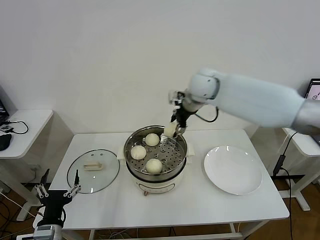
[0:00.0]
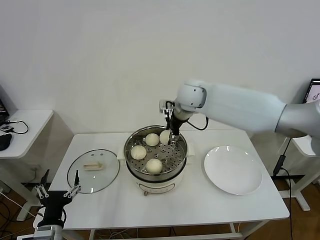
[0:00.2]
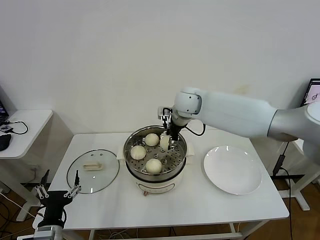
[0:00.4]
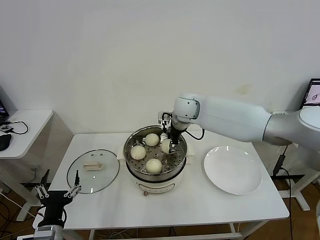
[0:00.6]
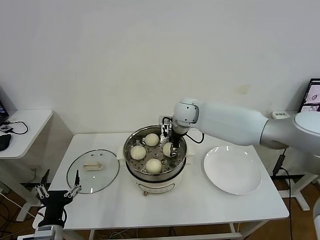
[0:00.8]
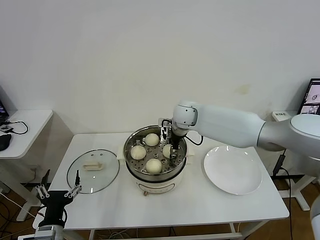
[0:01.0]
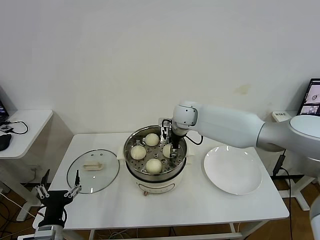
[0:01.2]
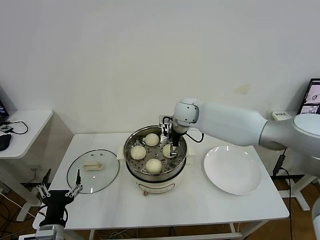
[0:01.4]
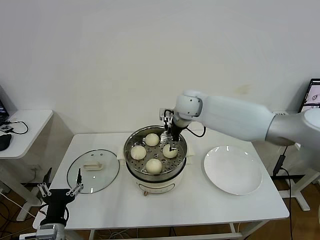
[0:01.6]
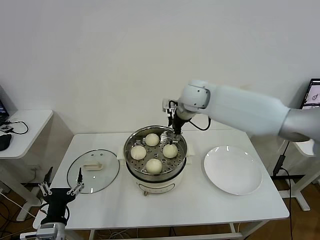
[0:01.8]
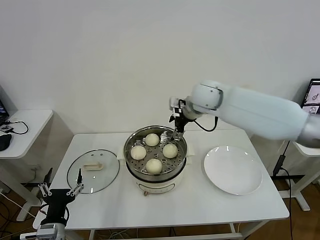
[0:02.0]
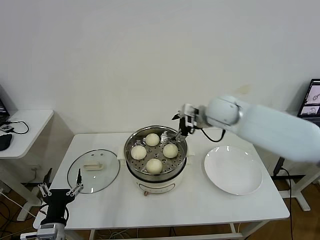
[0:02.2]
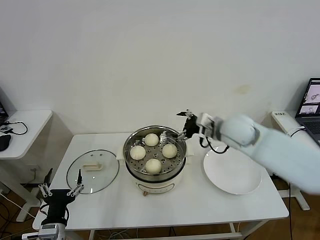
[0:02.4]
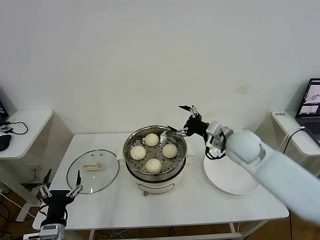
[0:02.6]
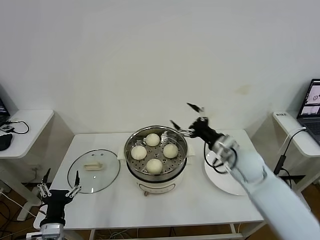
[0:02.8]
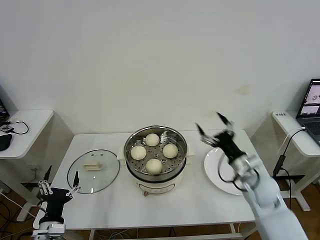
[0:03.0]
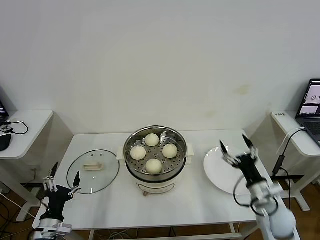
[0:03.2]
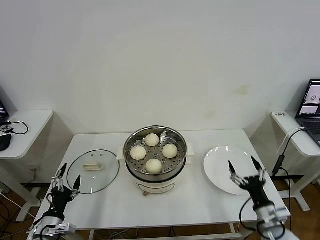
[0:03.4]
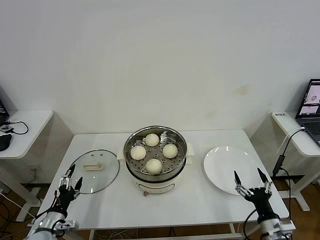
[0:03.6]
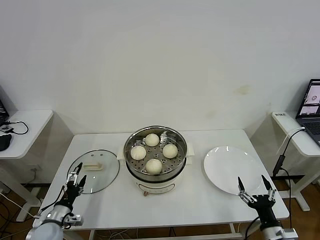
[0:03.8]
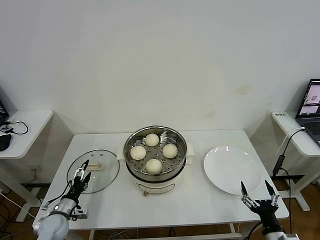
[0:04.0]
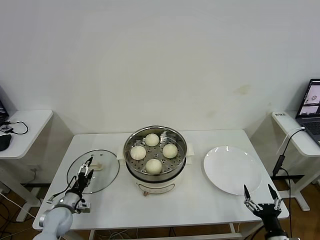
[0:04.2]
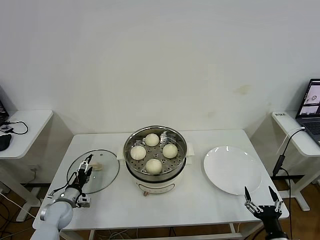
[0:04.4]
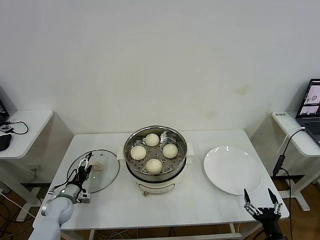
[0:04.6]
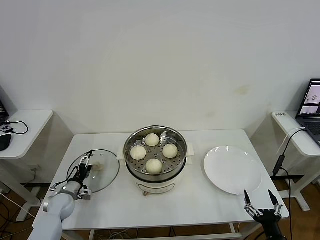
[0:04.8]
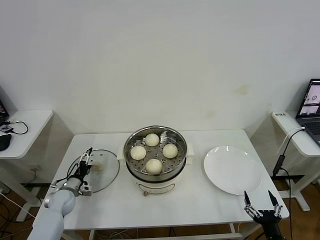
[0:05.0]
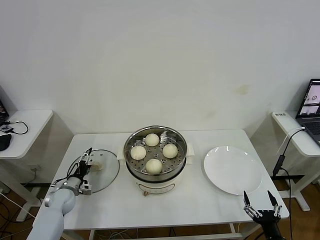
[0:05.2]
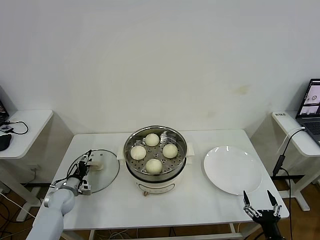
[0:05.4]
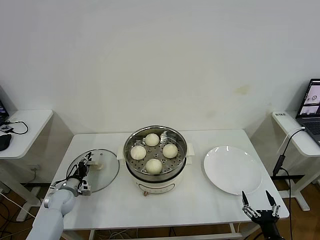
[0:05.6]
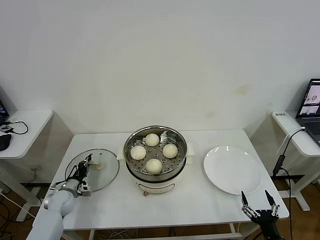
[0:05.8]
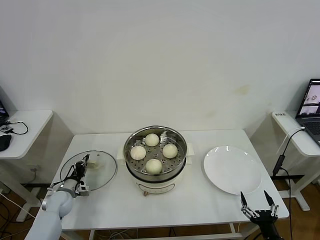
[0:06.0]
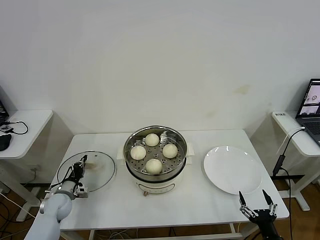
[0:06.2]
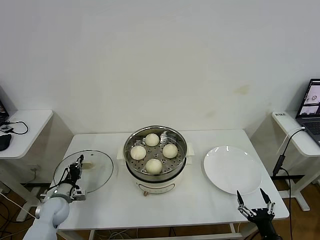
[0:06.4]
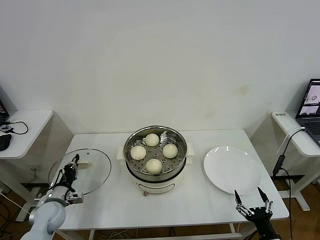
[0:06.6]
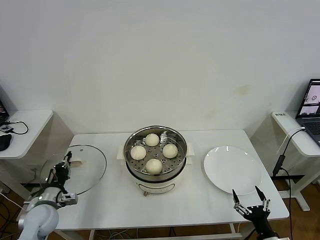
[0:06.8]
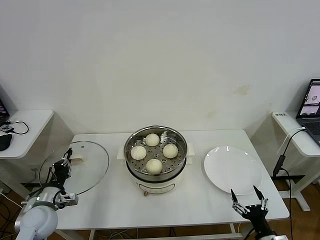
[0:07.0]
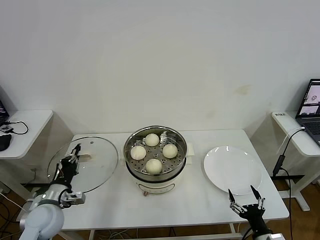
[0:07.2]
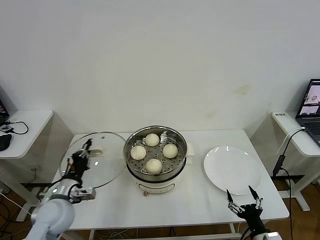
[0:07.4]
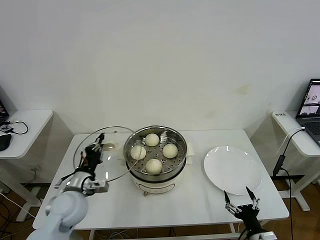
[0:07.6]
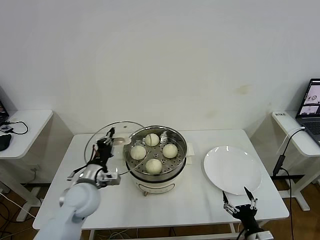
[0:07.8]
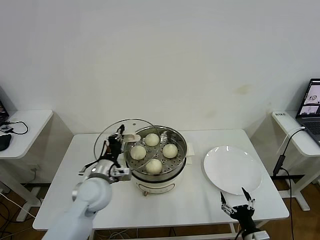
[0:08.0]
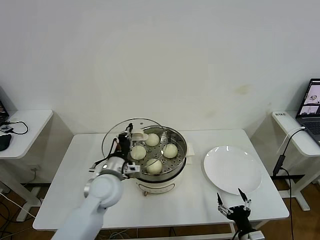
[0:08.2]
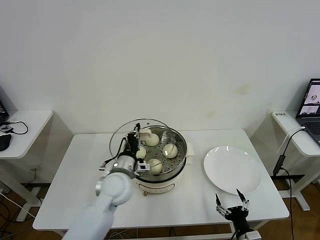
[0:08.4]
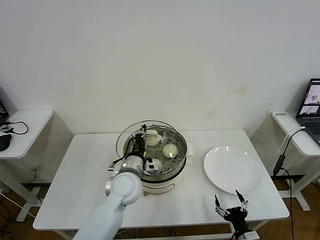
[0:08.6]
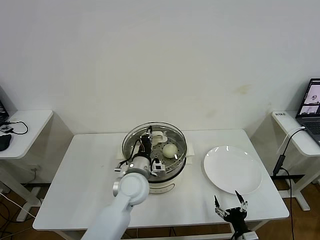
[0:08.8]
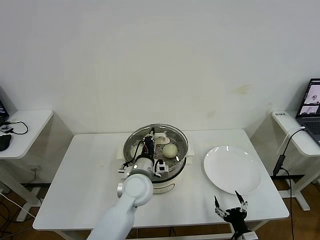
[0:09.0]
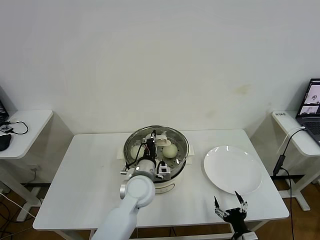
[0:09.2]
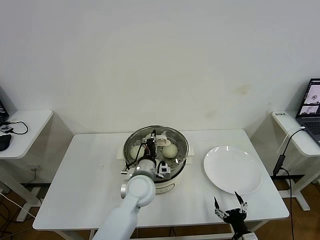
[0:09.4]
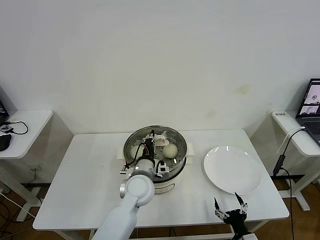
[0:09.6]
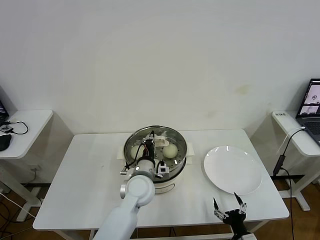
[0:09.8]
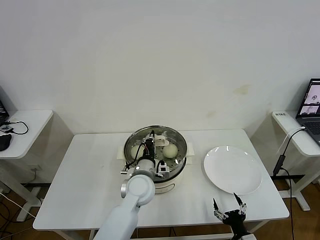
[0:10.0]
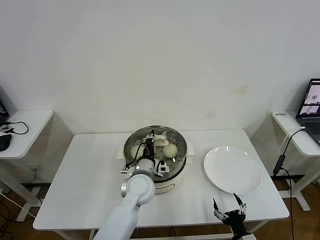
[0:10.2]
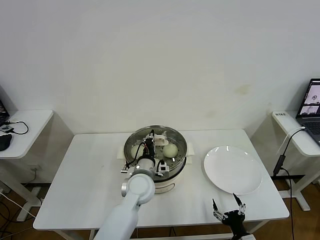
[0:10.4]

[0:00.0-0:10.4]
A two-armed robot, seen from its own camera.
Task of the whole recording: take steamed baozi put them in steamer then cover it.
Step, 0.0 to 1.4 s: Place the baozi on the steamer with right gripper.
Step, 1.8 to 6.0 s: Grasp the pot lid with left gripper.
0.0 to 1.4 s: The right gripper shifts some 10 cm downward, and opens its fingers.
1.4 to 3.0 s: The right gripper goes about 30 cm backward, to the right and downward.
3.0 to 4.4 s: The left gripper heads forward and downward, covering some 20 cm, while the right gripper travels backward and downward by about 25 cm.
4.4 to 6.0 s: The left gripper travels forward by about 5 cm, and closes.
6.0 to 7.4 s: The left gripper goes some 20 cm upward, backward and to the right.
7.4 to 9.0 s: The right gripper moves about 5 cm. Meanwhile the left gripper travels to the right by about 25 cm.
9.0 to 10.4 s: There are only small adjustments of the grippers.

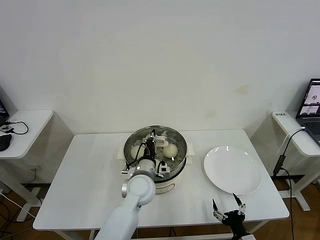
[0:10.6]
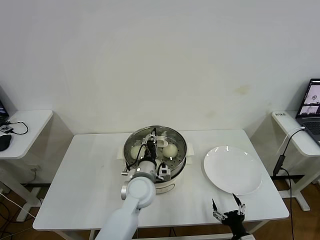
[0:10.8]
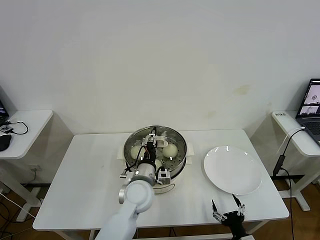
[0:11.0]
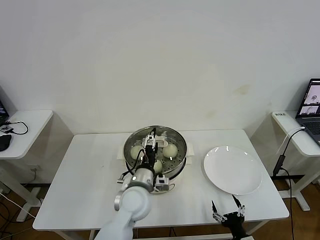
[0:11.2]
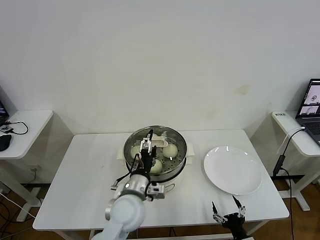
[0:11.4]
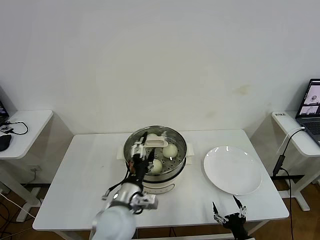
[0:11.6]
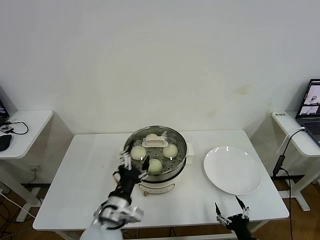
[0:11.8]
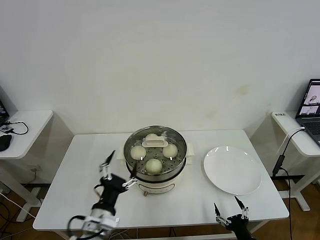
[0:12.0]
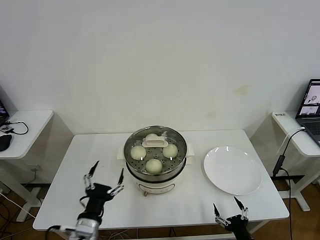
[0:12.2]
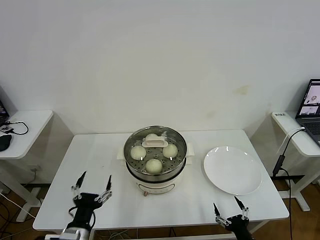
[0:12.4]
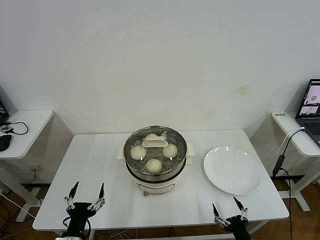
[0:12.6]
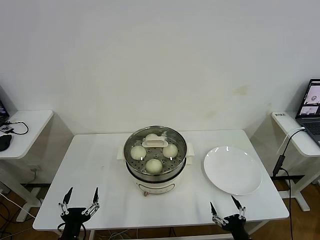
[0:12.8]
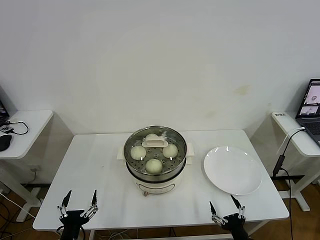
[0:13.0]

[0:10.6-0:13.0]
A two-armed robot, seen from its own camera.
Task of the whole recording: take steamed baozi put them in steamer then cover it.
10.6 to 11.8 s: The left gripper moves backward and to the left, about 15 cm, and opens its fingers.
11.8 to 13.0 s: The left gripper moves to the left, downward and backward, some 20 cm.

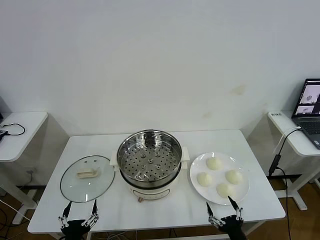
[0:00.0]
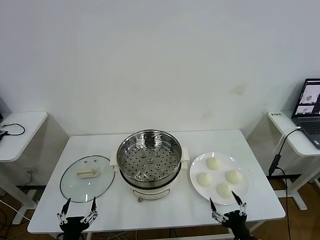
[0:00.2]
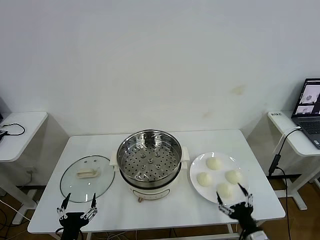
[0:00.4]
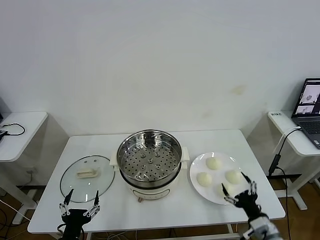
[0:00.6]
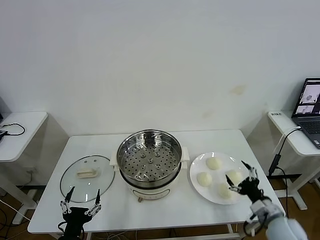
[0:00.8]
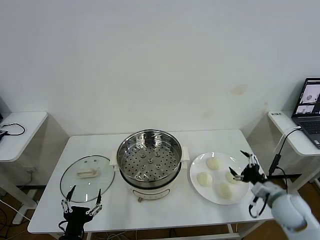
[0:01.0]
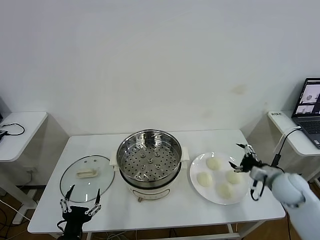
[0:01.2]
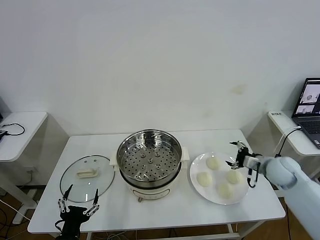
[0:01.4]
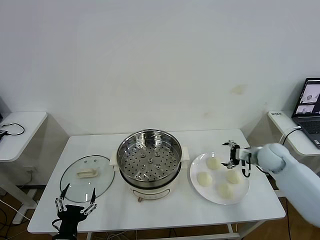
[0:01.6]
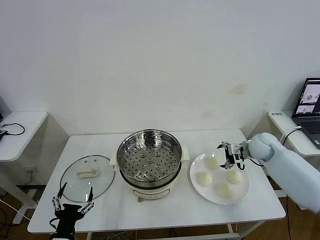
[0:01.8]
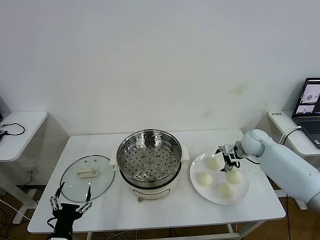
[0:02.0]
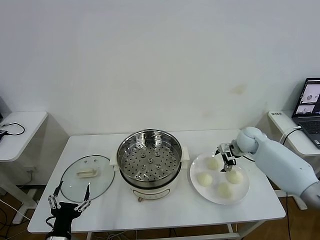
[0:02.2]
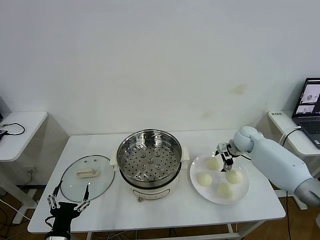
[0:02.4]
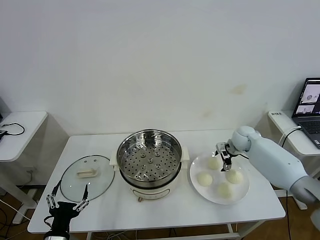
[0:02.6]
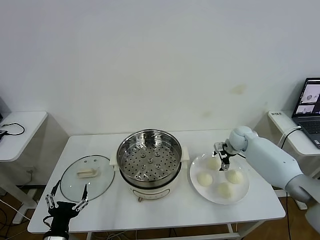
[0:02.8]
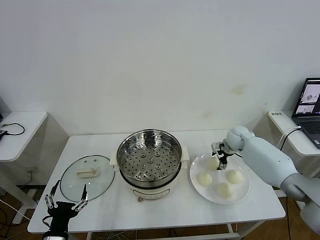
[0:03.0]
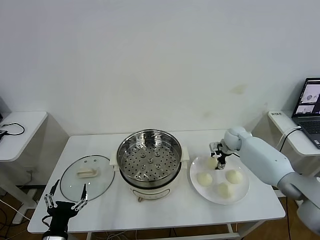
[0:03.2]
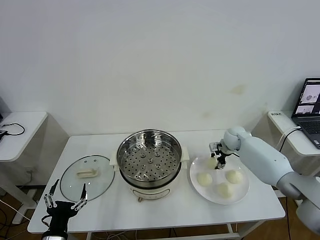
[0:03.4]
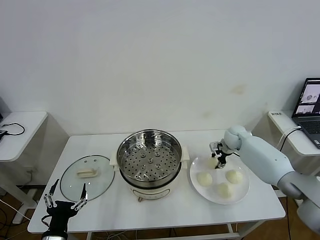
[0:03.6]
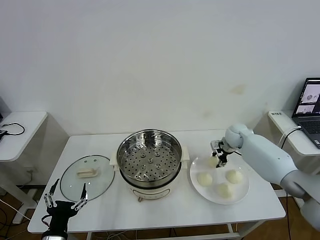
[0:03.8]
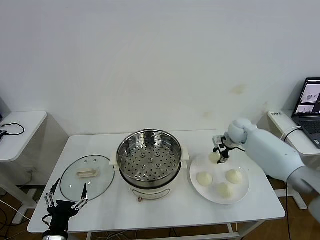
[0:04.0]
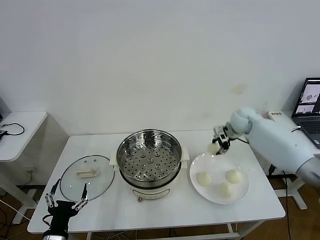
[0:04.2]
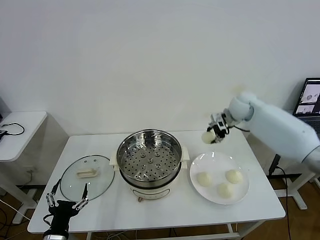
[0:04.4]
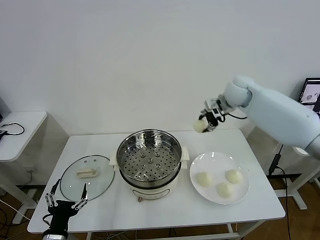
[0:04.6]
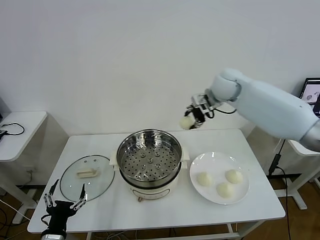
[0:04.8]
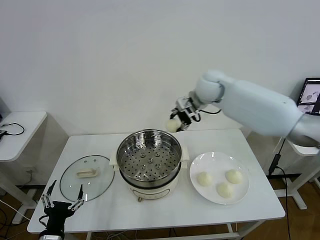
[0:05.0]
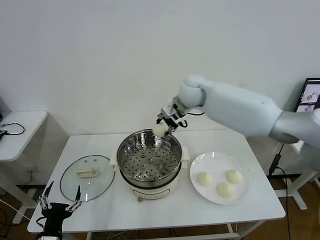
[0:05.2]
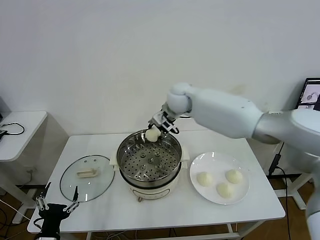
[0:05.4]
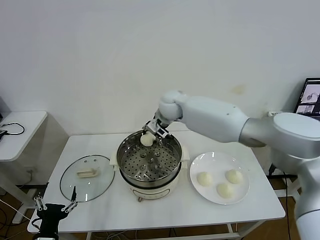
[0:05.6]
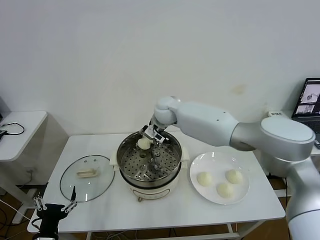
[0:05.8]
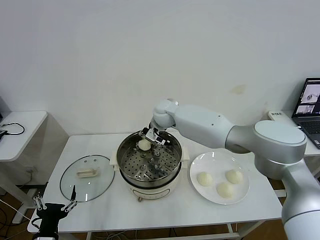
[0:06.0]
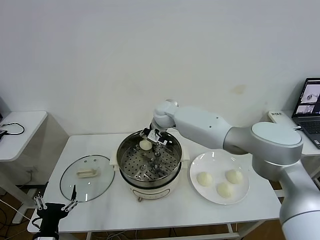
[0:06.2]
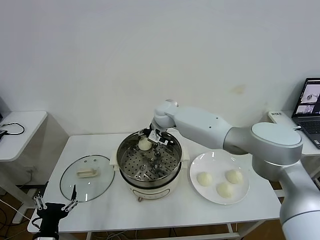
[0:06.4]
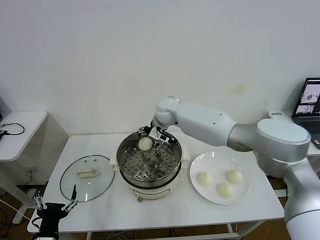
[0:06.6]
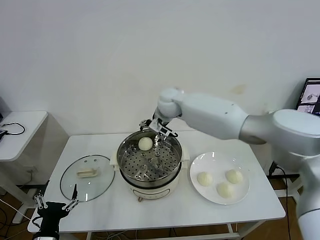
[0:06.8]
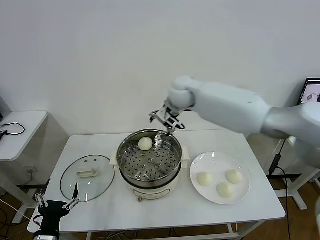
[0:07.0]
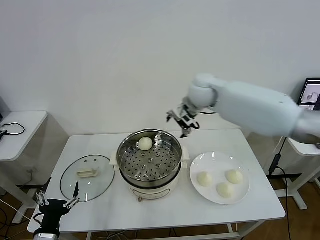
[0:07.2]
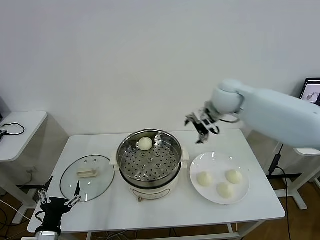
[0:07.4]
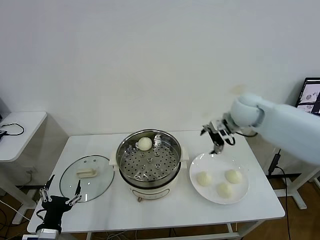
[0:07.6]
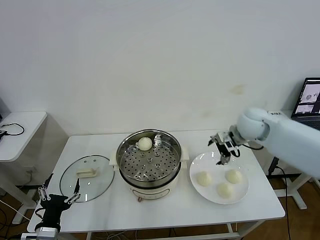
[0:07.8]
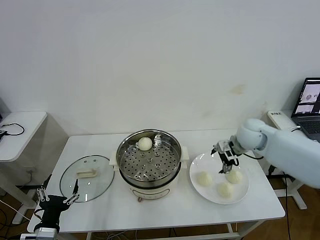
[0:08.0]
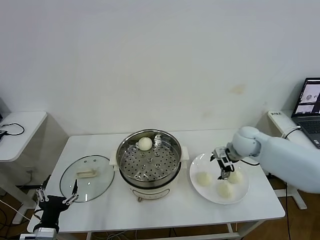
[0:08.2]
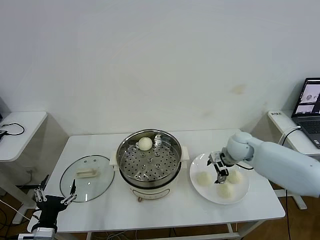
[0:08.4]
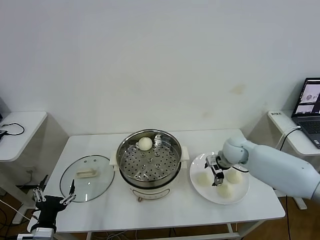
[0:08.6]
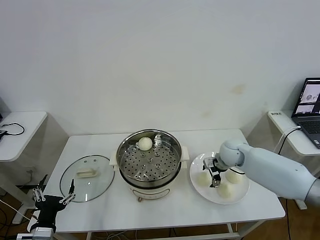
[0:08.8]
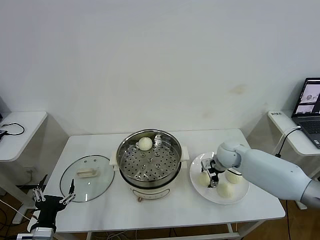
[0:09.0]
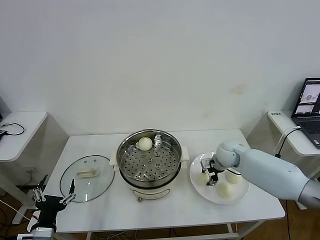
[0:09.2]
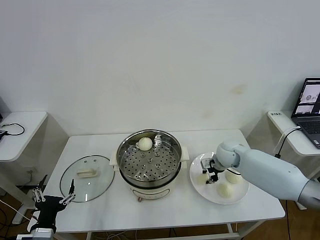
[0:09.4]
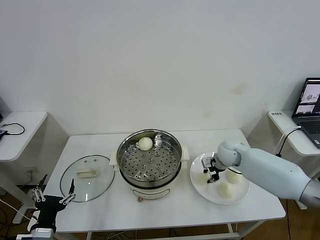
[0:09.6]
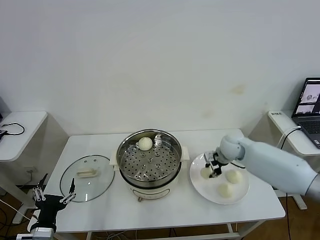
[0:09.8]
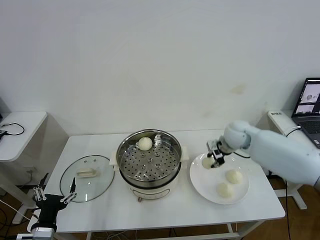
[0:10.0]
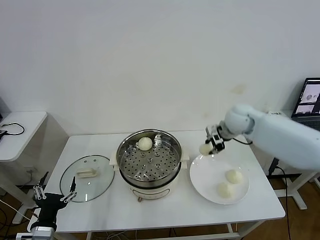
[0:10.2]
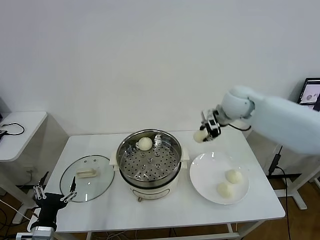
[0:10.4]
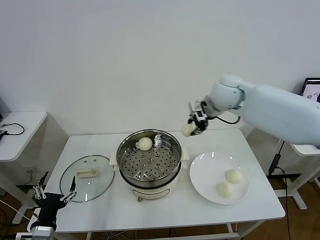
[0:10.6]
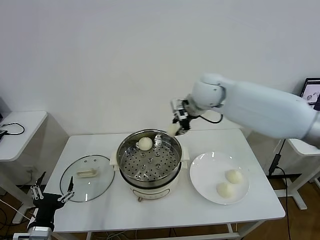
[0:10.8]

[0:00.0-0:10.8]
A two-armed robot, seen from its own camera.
Task of the whole recording: take steamed baozi put them in steamer then cover it.
Step, 0.0 to 3.4 s: Grasp the baozi in the plate with right gripper.
Step, 3.6 to 6.4 s: Place the baozi on the steamer with right gripper.
Step, 6.6 to 9.2 s: Grasp the baozi in the plate with right gripper.
1.6 to 3.0 s: The right gripper shifts roughly 15 cm forward and to the left.
3.0 to 4.6 s: The right gripper goes approximately 20 cm upward, and closes.
4.6 to 6.2 s: The right gripper heads to the left and downward, covering roughly 25 cm.
6.2 to 7.8 s: The right gripper is displaced to the right by approximately 25 cm, and opens.
7.8 to 9.2 s: The right gripper shifts roughly 15 cm downward, and closes its fingers.
9.2 to 10.8 s: The right gripper is displaced upward and to the left by some 30 cm, and closes.
